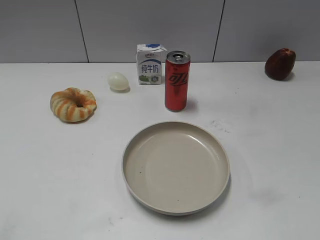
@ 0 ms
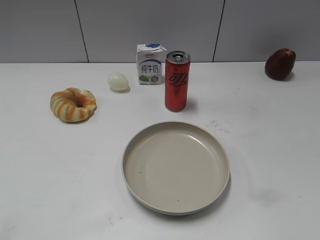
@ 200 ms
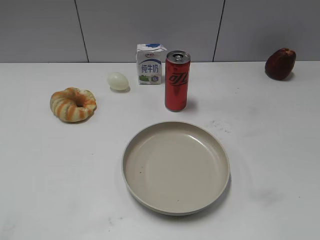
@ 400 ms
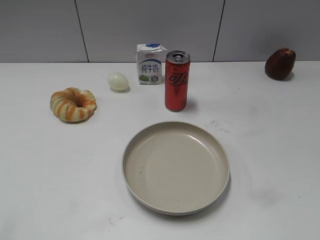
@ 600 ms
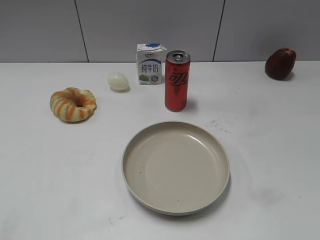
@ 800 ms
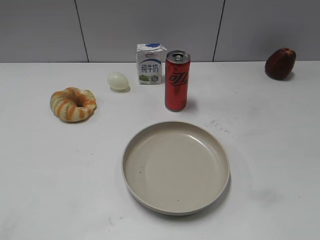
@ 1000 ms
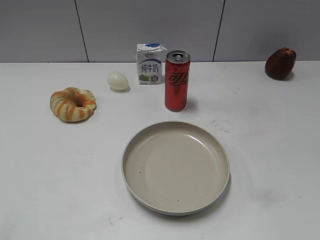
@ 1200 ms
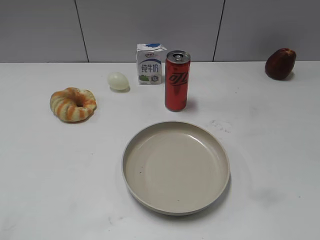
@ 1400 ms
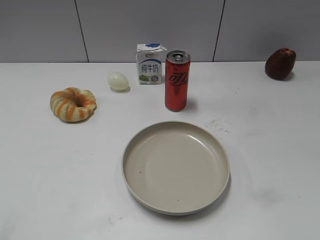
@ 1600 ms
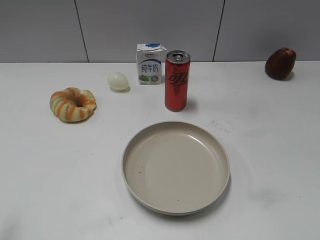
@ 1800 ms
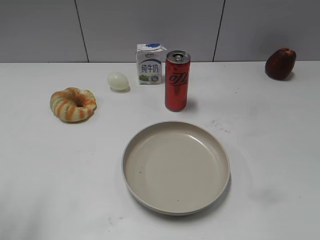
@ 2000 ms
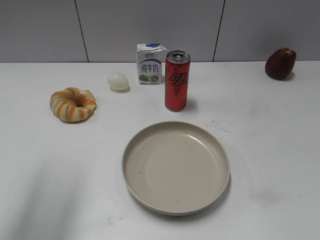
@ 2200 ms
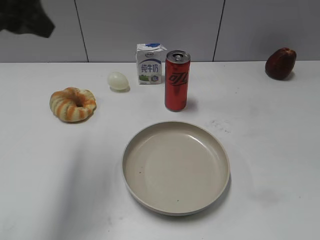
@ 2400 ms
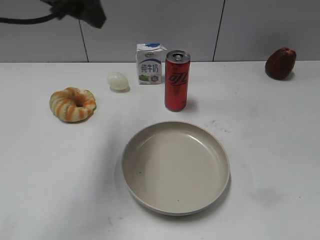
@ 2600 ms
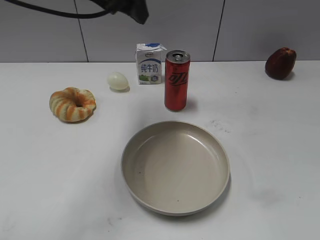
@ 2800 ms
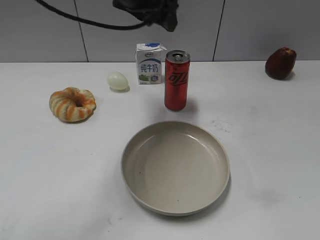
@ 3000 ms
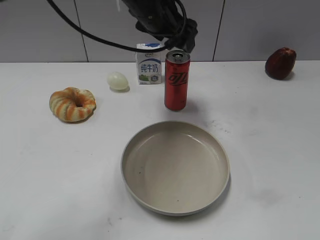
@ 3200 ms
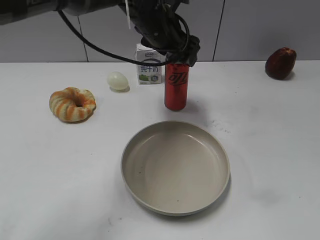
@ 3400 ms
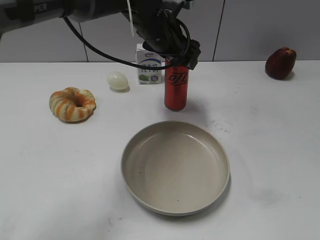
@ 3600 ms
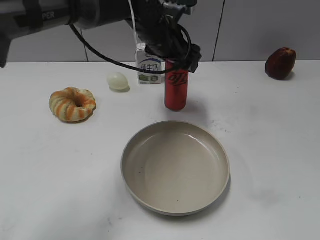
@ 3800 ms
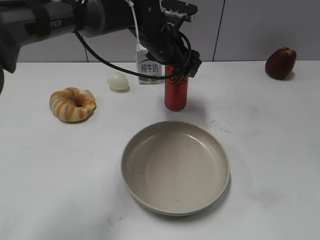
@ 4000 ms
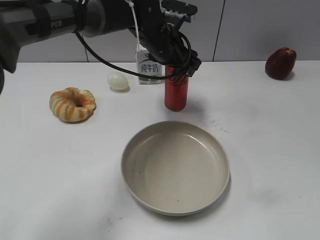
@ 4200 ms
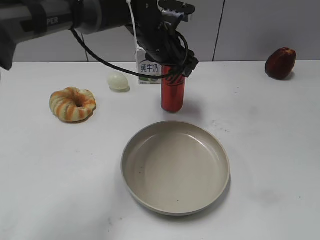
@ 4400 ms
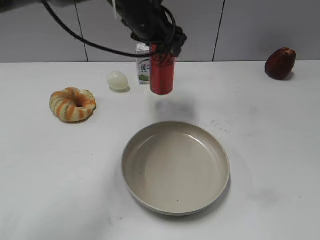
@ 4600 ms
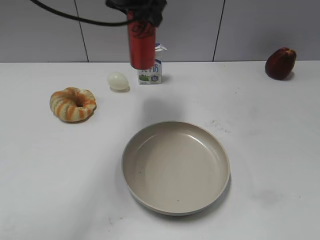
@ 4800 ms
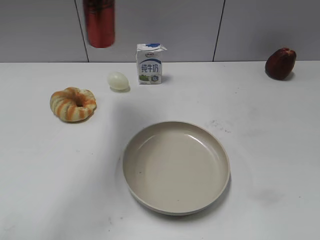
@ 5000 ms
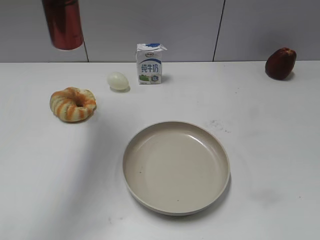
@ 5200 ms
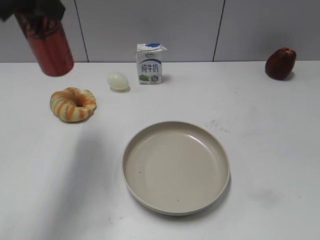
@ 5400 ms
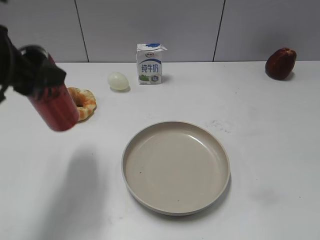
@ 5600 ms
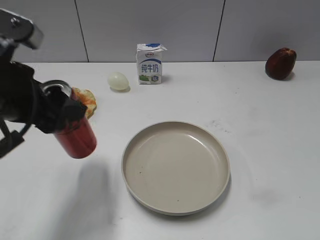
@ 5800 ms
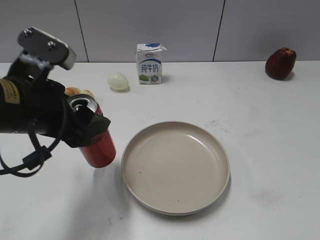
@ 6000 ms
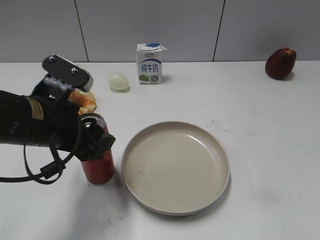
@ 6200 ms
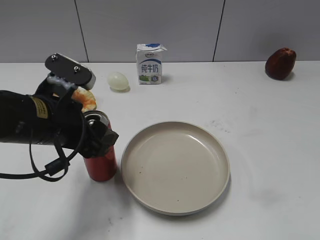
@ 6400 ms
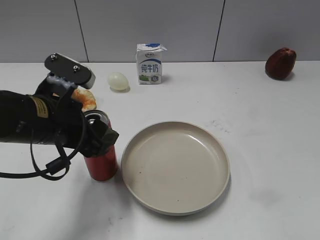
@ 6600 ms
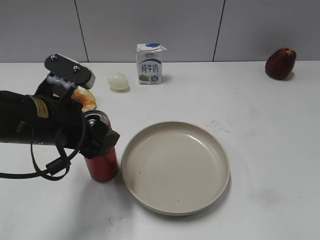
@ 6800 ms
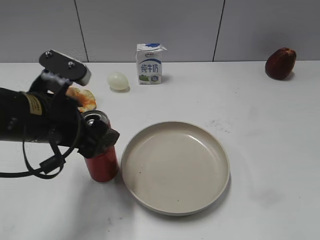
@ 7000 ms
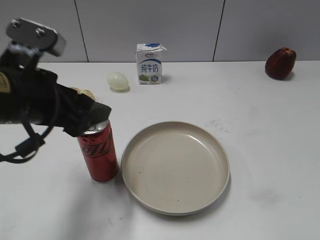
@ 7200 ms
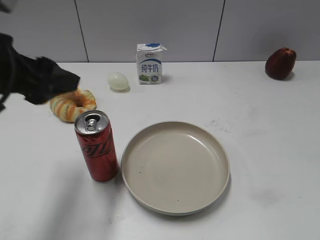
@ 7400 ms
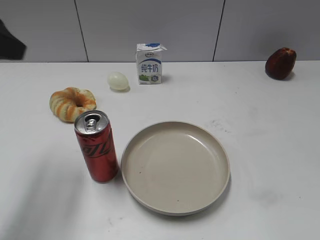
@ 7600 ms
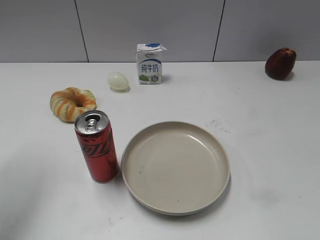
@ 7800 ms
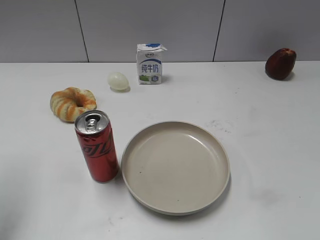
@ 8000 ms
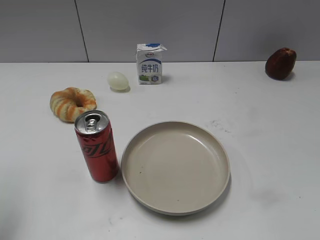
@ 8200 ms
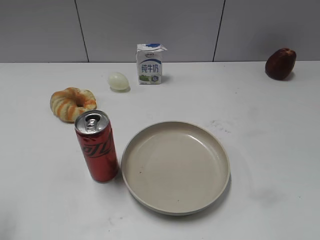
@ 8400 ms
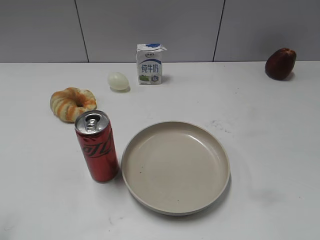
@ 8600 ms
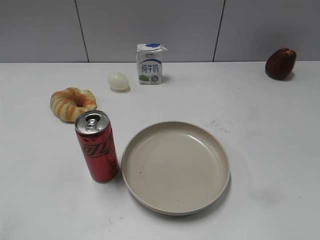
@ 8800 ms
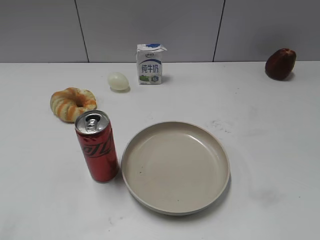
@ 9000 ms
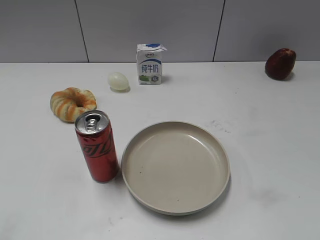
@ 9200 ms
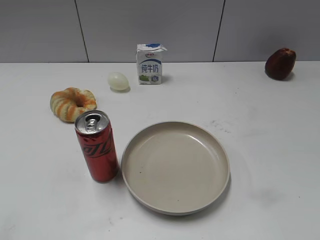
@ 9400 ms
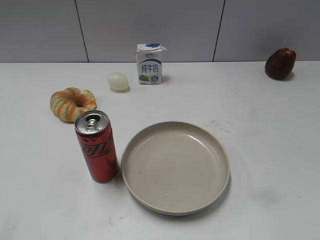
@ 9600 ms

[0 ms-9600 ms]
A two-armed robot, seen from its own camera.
Step, 1400 ms to 4200 ms: Grasp the cola with left gripper.
Step, 4400 ms to 7400 ms: Place the cola on the table with left gripper.
1600 ms to 3200 ms: The left gripper goes some 50 cm forward and to the right, and opens up.
3200 ms to 4800 ms: The left gripper travels upward and to the left by approximately 10 cm, and closes.
4800 ms to 6400 ms: The left gripper moves backward, downward and to the left, roughly 25 cm.
6400 ms to 8000 ms: The left gripper travels to the left and upward by roughly 20 cm, and opens.
8000 ms to 9600 ms: The left gripper is displaced backward by some 20 cm.

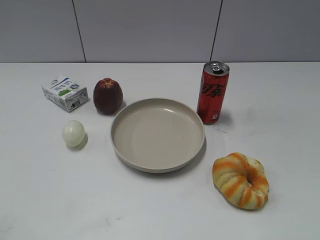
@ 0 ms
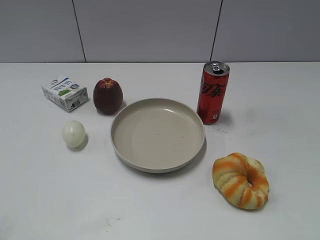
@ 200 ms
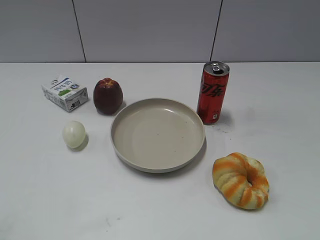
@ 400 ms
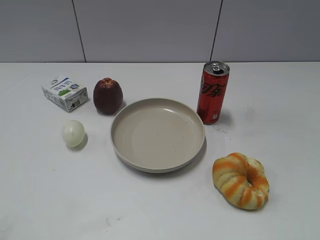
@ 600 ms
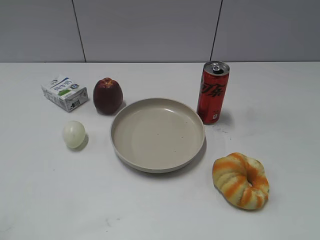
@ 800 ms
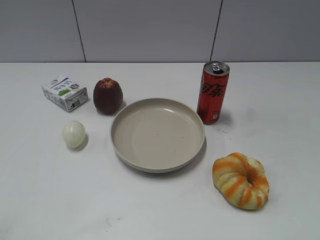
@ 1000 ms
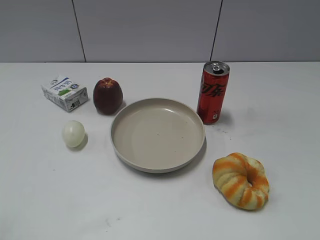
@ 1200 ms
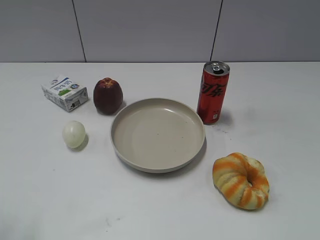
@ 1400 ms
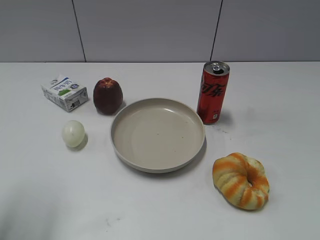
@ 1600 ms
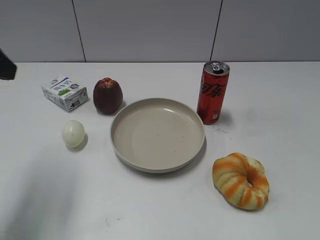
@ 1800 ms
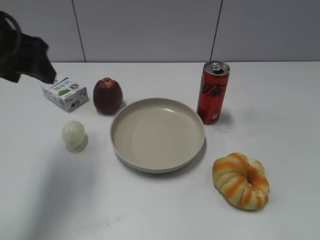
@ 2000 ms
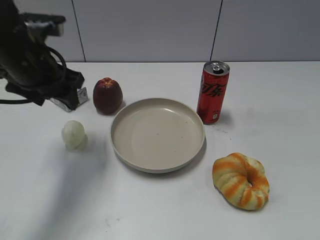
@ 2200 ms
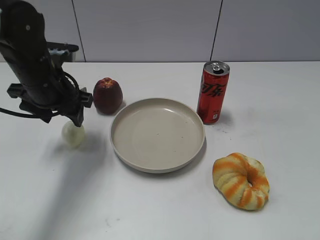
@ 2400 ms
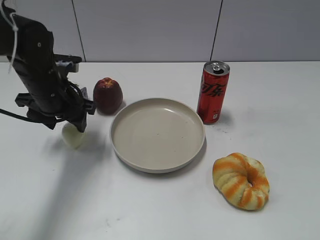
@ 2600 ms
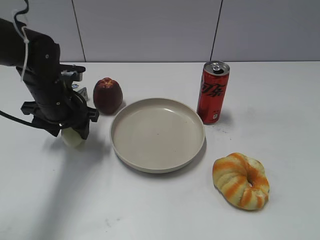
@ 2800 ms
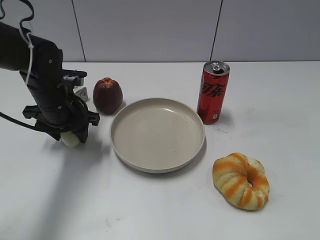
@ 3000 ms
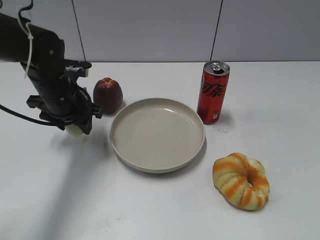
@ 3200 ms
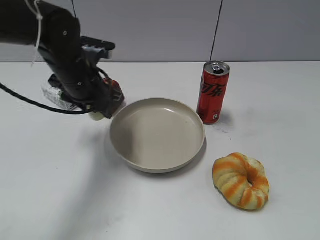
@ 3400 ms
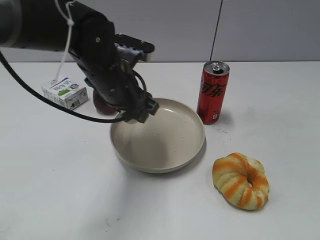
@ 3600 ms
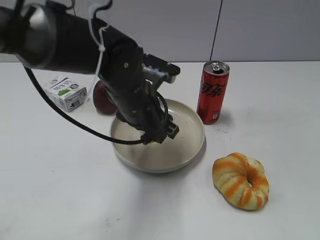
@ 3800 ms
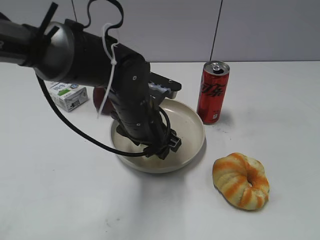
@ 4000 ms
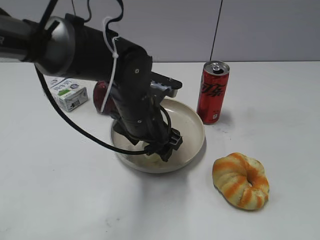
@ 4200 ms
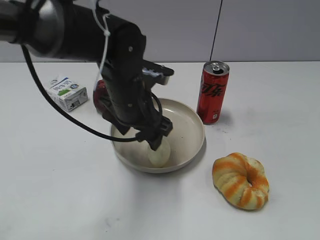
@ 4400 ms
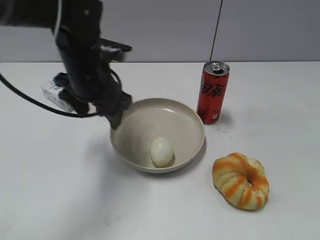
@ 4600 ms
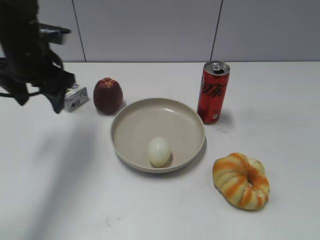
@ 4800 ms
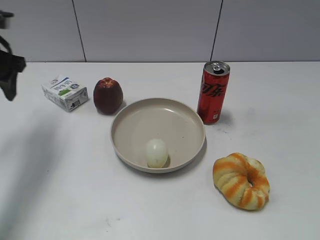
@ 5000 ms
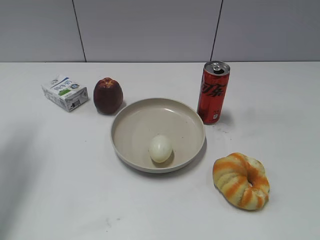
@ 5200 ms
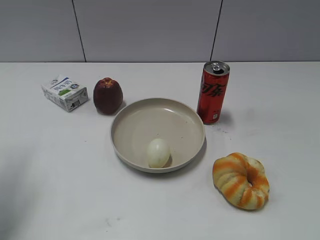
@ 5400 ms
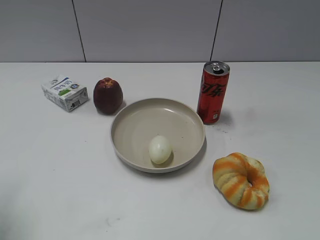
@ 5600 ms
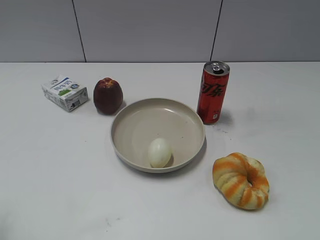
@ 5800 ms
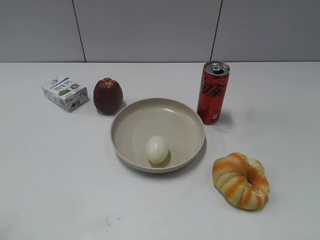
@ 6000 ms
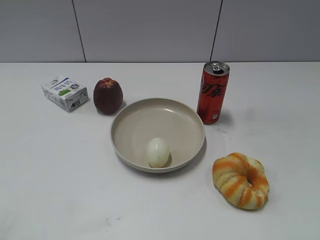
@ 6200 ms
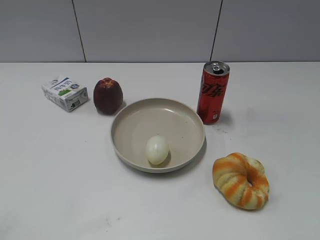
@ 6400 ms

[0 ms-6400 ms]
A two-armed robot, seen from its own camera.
Step, 800 ms to 3000 ms: Grasp the egg with left gripper.
Step, 3200 ms to 4400 ms: Place the egg on the plate with left gripper.
1600 ms to 3200 ms: The left gripper is displaced forward, downward and to the right by roughly 25 cm, and closes its fingers.
3200 ms to 4800 ms: The left gripper shifts some 10 cm upward, reaches about 15 cm to the right, then returns, and opens its fingers.
4800 ms to 6400 ms: The left gripper is displaced backward by some 35 cm.
